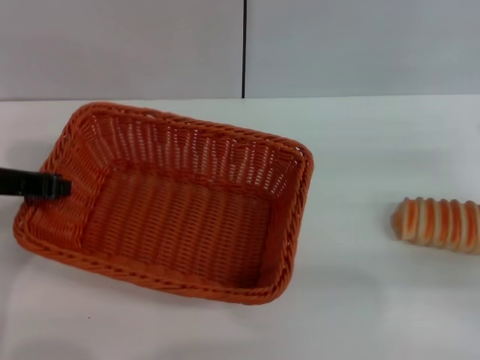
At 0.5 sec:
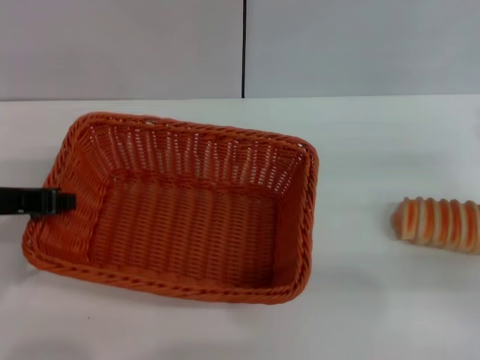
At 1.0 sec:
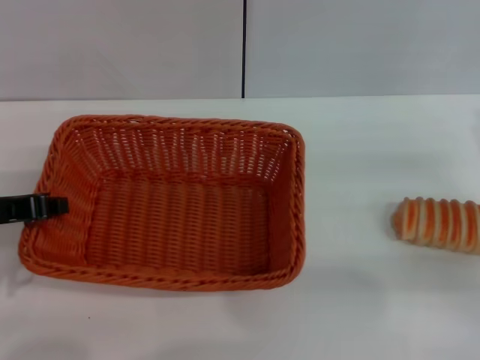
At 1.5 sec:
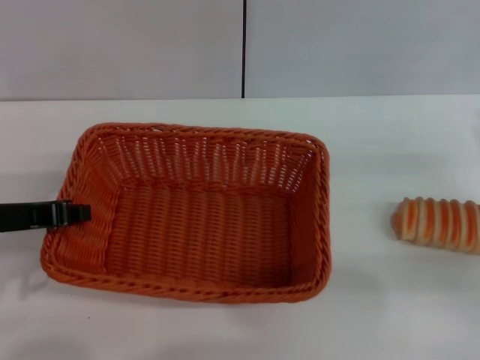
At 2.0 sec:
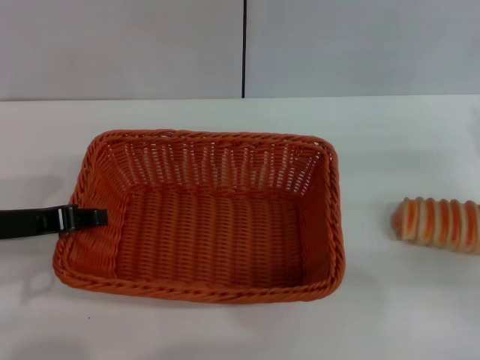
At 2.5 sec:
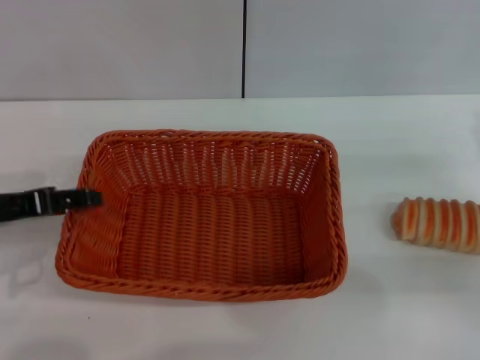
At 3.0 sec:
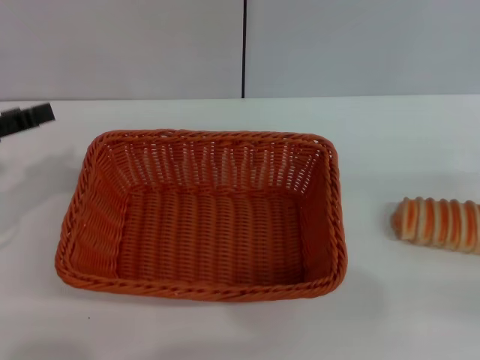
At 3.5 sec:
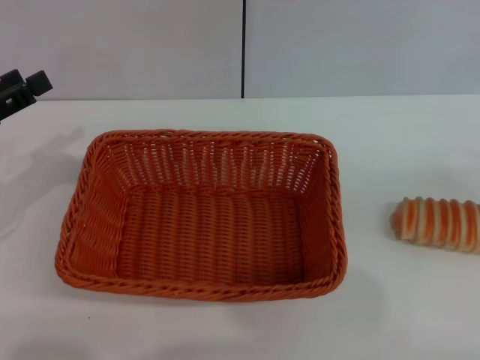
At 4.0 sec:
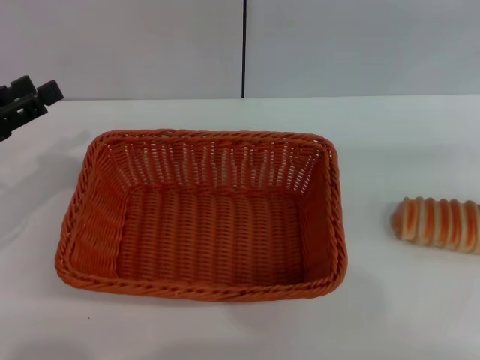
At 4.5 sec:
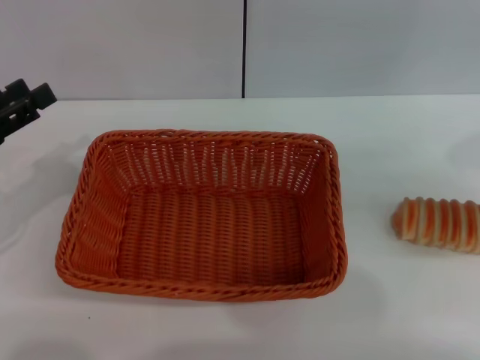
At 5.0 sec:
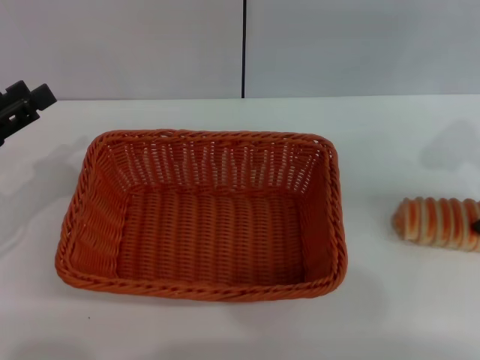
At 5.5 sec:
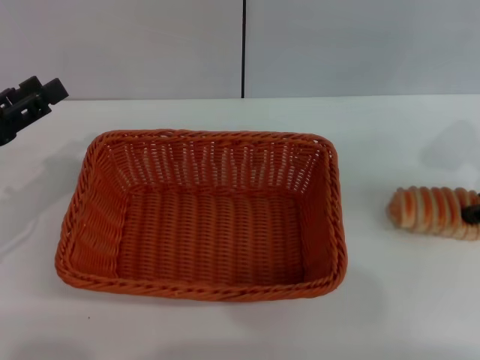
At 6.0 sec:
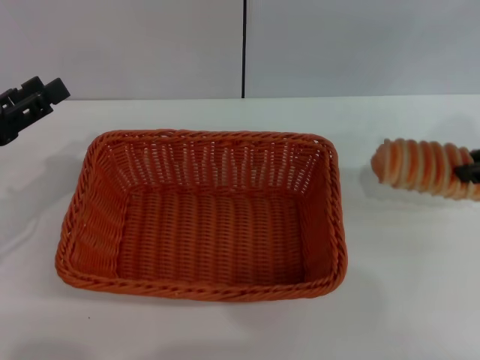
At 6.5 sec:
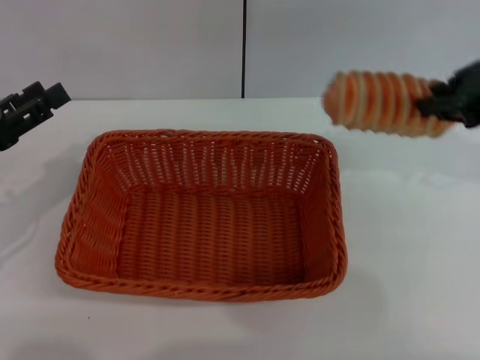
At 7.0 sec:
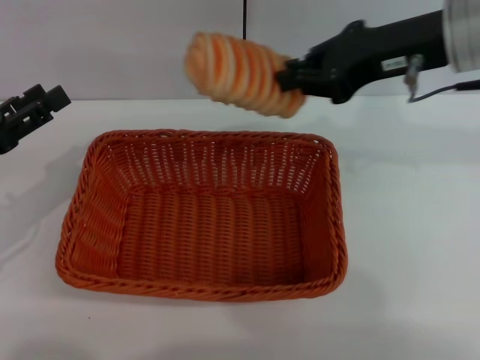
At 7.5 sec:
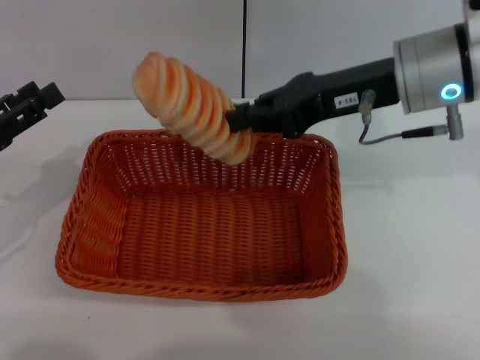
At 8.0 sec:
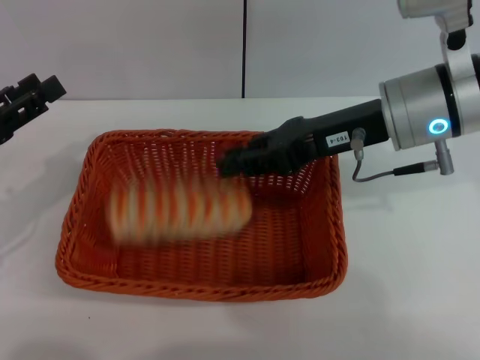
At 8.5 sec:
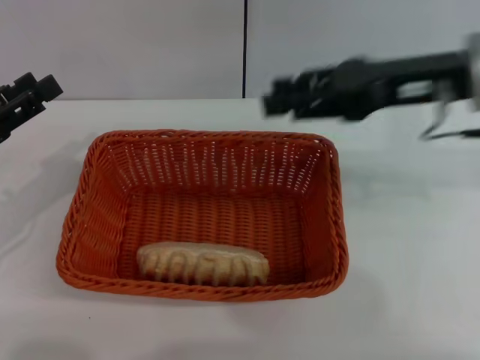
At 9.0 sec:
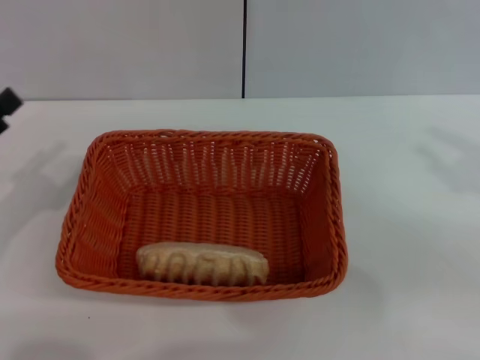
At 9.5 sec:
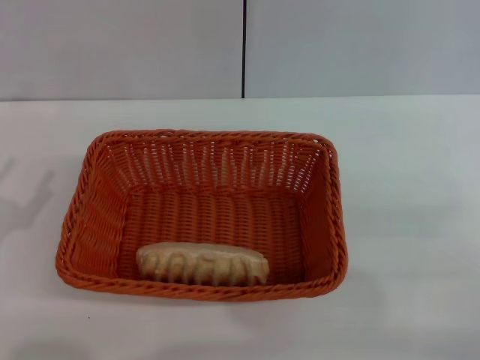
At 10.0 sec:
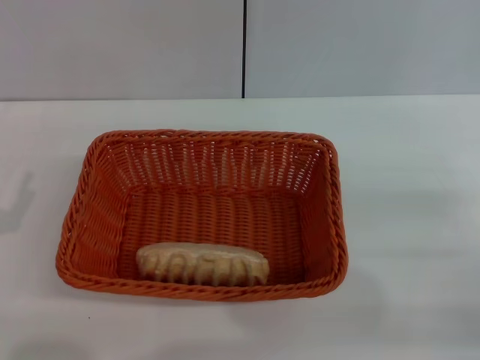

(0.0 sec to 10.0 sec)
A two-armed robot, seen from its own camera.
Step, 0.0 sec - 2.5 sec: Place the light basket in the center of view with the left gripper.
Step, 3.0 sec - 6.0 sec: Pick up the long bread with the right gripper.
Step, 6.5 sec - 8.0 sec: Place the long bread into the light basket with the right gripper.
0.0 sec - 2.0 sec: There are only small adjustments of the grippers.
2.0 sec - 4.0 sec: The right gripper is displaced upward by roughly 15 cm; the left gripper goes about 5 cm to the left, and opens up.
4.0 sec - 6.0 sec: The right gripper is displaced to the left by roughly 10 cm, and closes.
6.0 sec - 8.0 sec: The right gripper travels to the left by some 15 cm, and closes its fingers.
8.0 sec - 10.0 sec: The right gripper shifts some 25 cm to the right, backward and downward, and opens its fingers; the left gripper shifts some 10 cm backward and downward.
